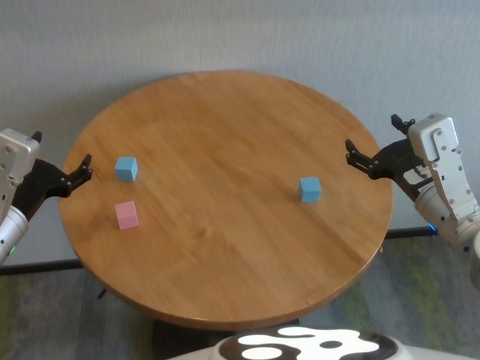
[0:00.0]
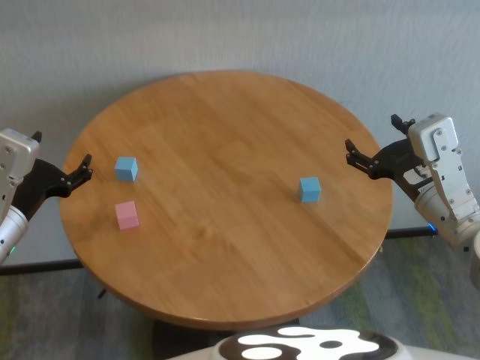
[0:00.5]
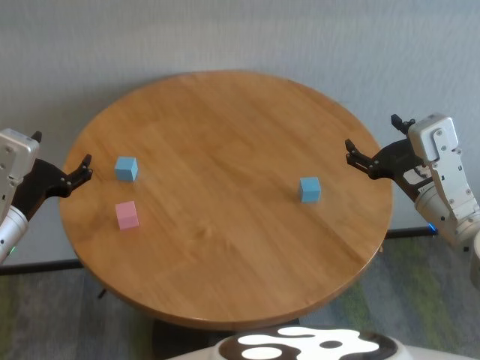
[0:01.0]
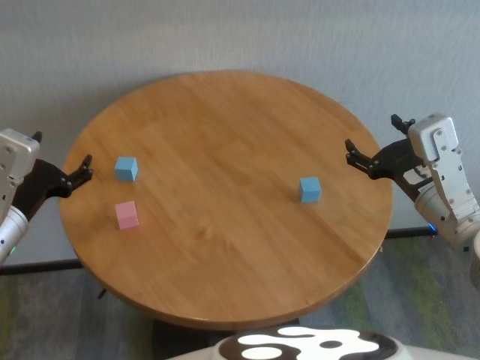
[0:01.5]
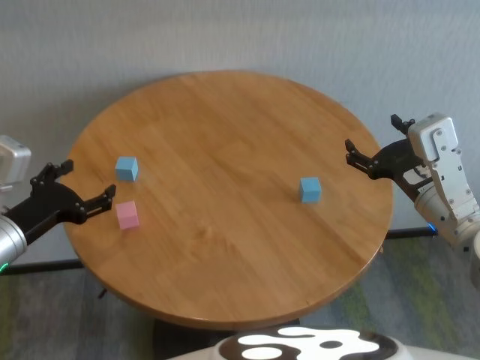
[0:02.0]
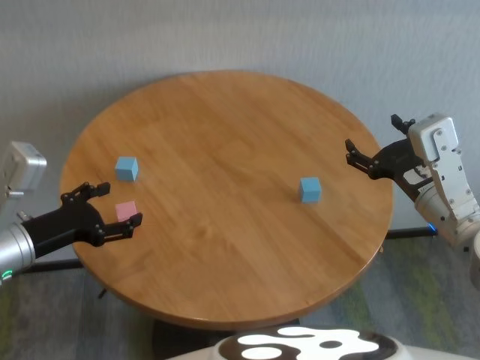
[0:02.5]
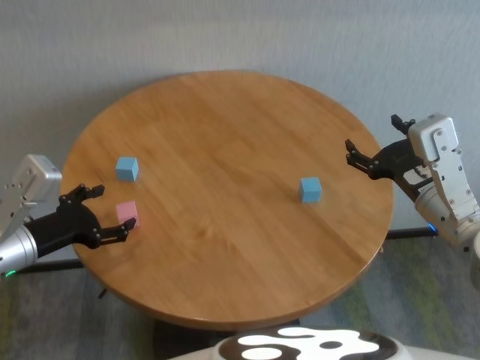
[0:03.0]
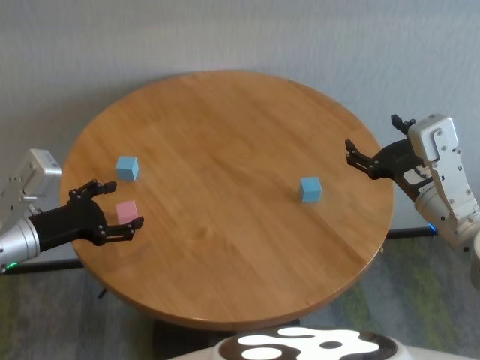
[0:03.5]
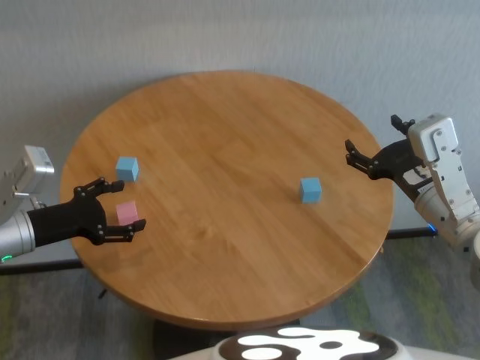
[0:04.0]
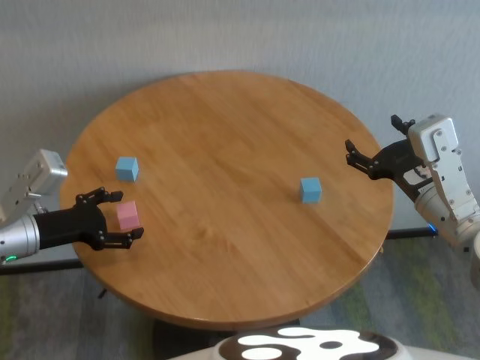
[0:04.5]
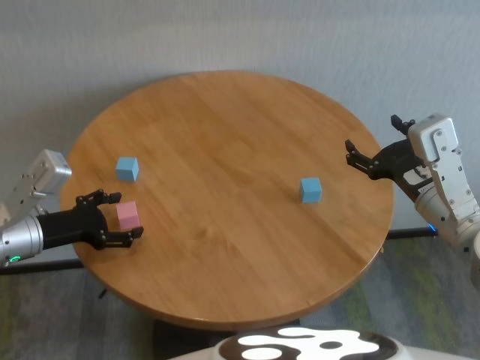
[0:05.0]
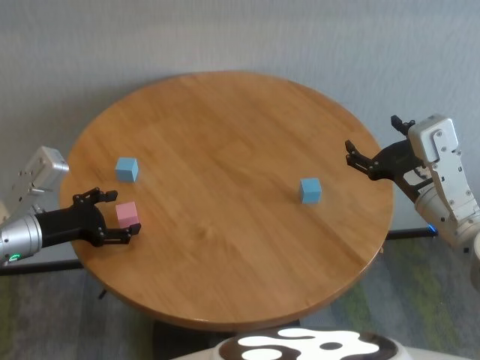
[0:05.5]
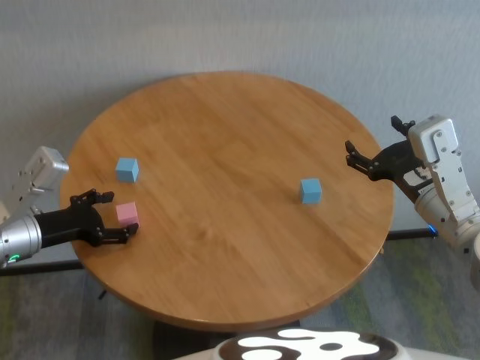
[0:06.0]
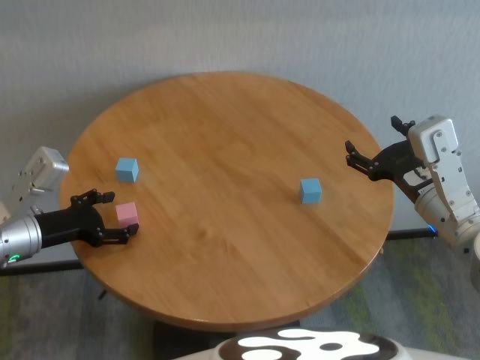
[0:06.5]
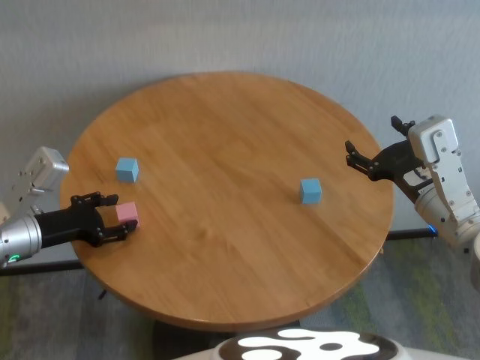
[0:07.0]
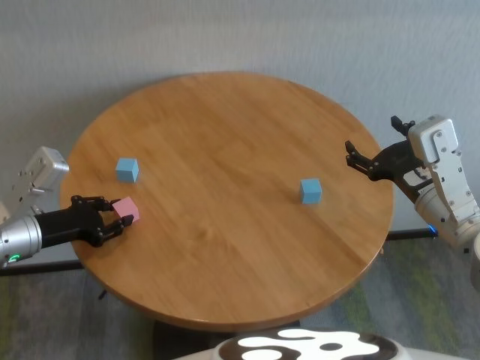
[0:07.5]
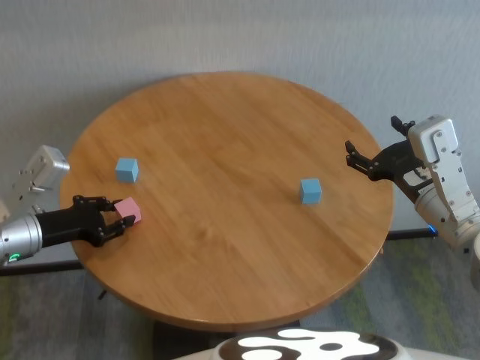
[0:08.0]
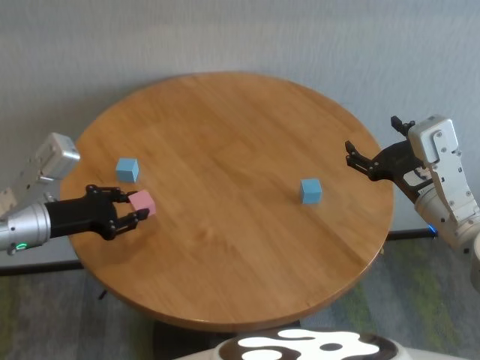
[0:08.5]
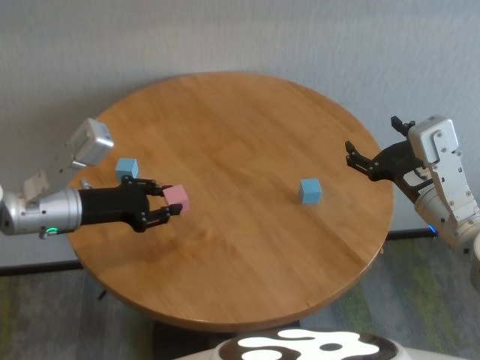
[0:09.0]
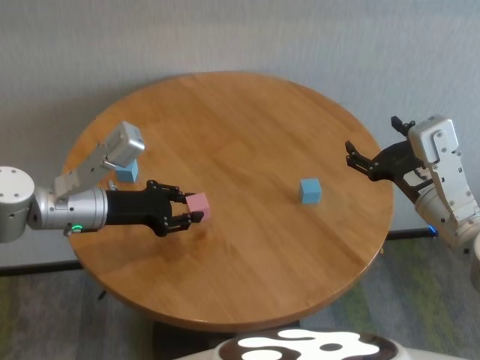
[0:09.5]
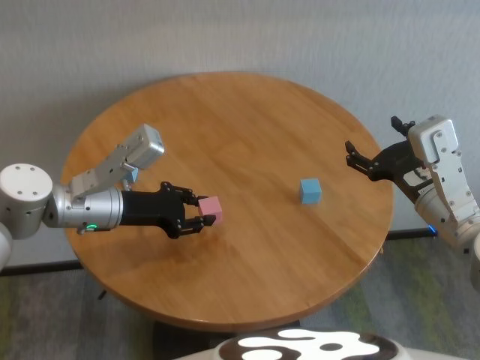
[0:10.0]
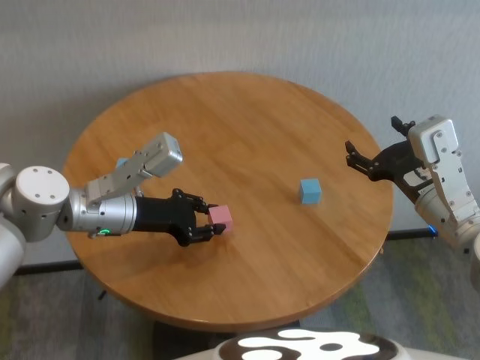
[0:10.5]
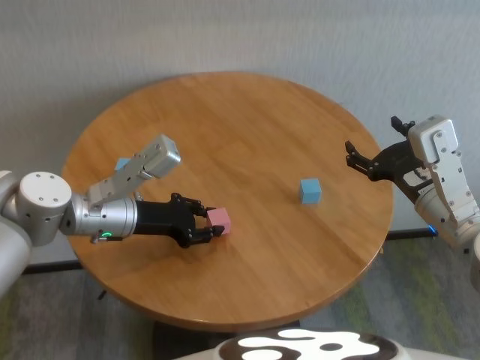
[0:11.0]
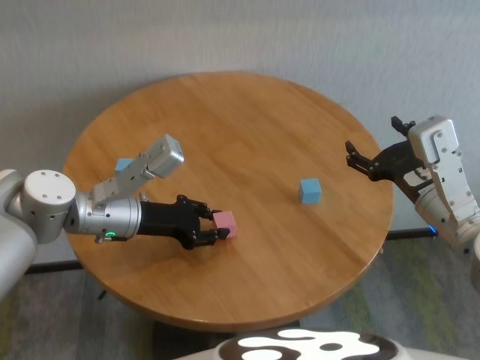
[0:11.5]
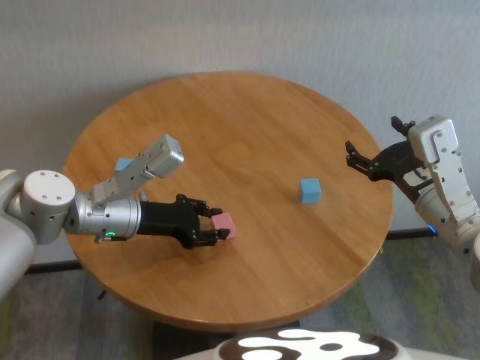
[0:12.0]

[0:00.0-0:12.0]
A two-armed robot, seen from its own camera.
Task of the whole recording: stack building blocks on the table.
Step, 0:00.0 to 0:07.5: Grasp the pink building block with left gripper.

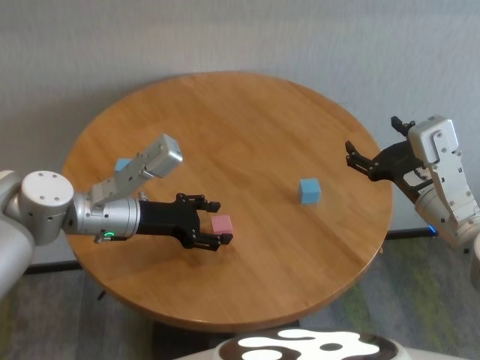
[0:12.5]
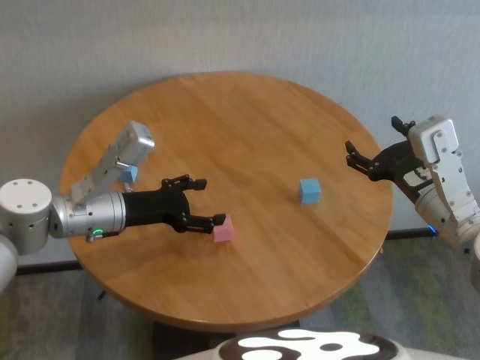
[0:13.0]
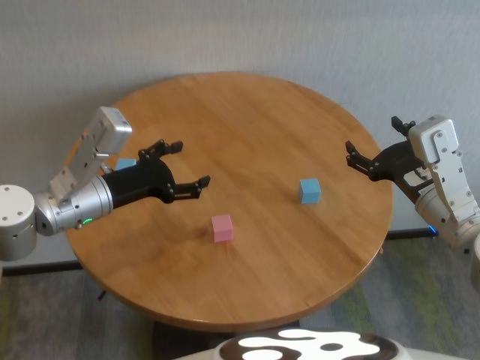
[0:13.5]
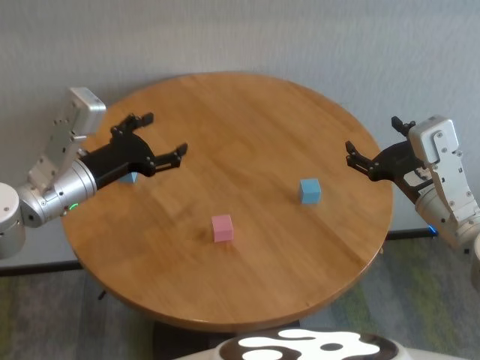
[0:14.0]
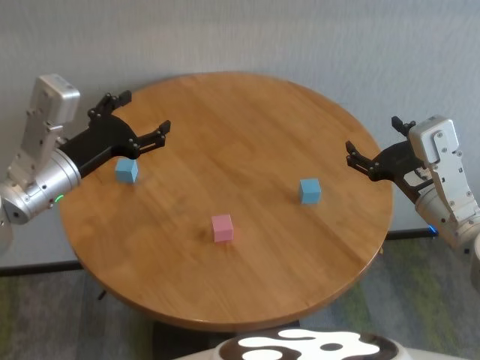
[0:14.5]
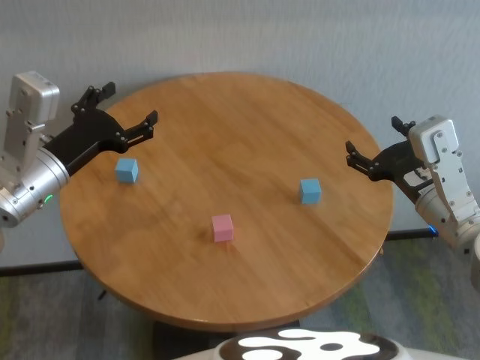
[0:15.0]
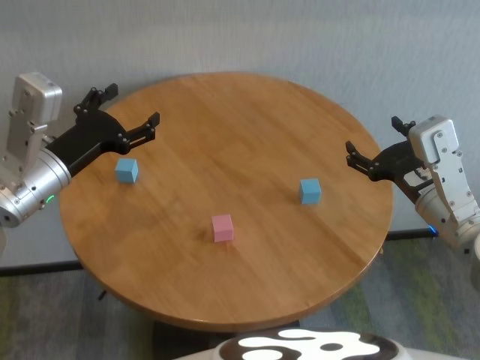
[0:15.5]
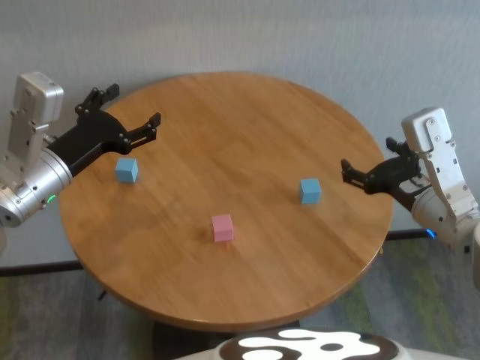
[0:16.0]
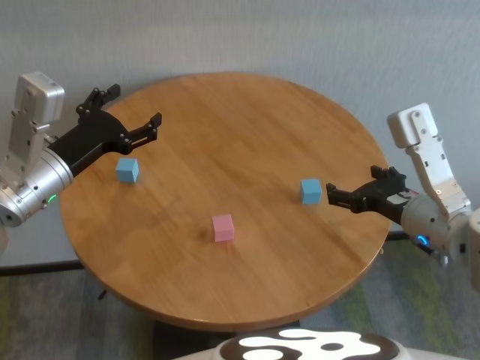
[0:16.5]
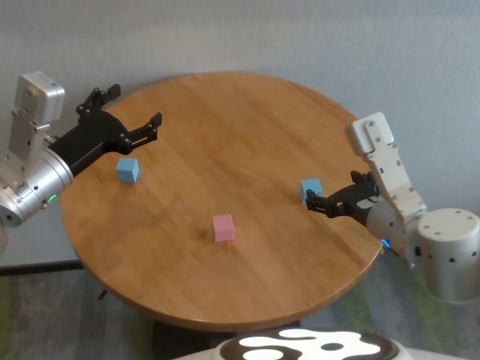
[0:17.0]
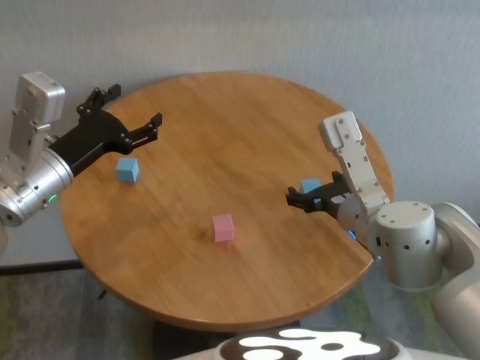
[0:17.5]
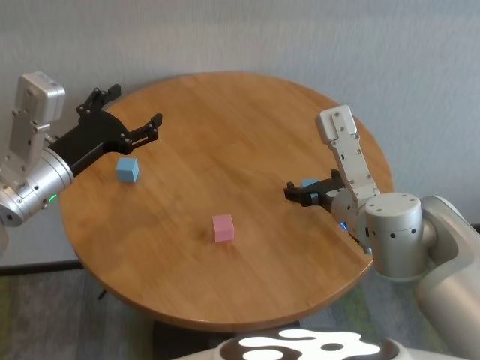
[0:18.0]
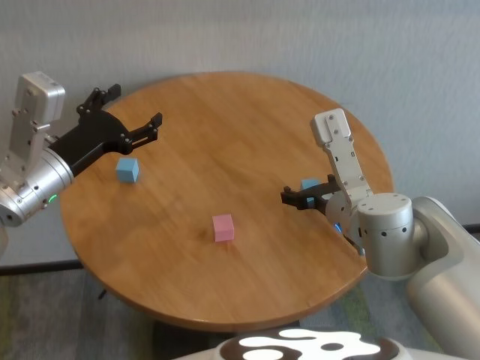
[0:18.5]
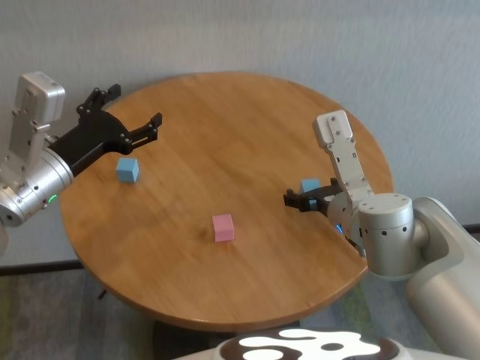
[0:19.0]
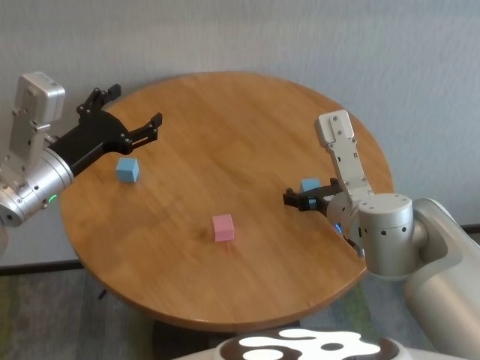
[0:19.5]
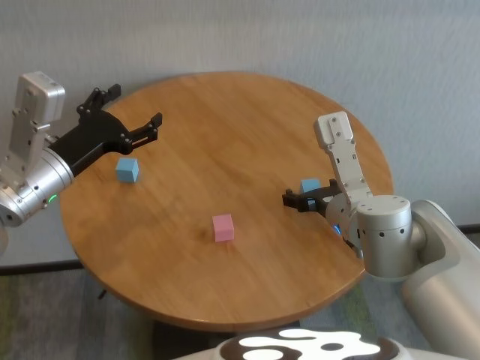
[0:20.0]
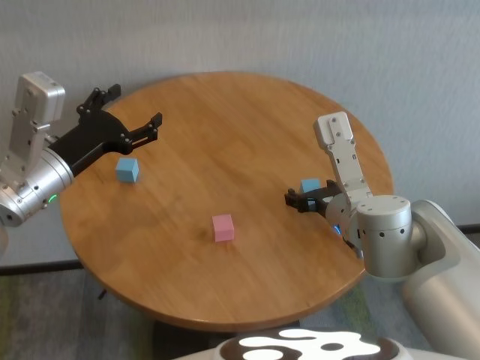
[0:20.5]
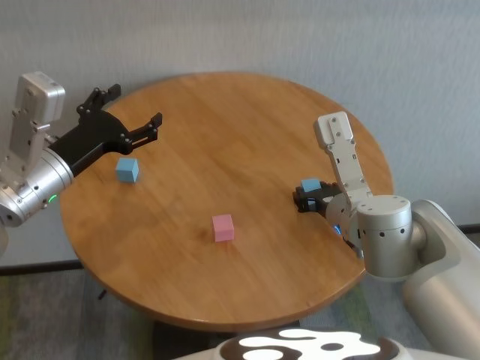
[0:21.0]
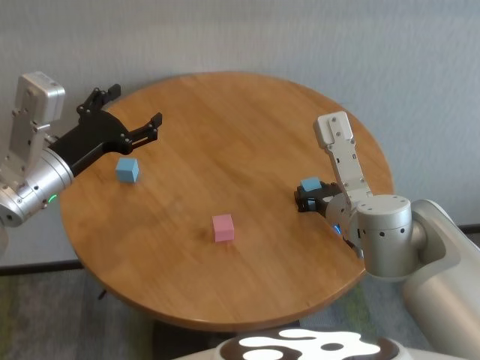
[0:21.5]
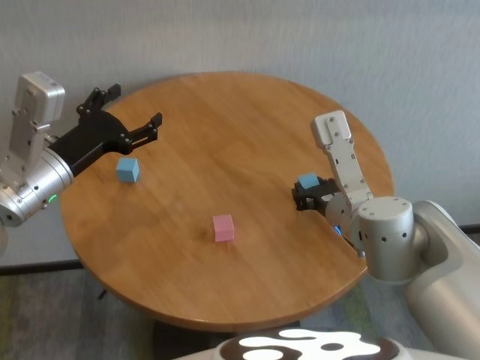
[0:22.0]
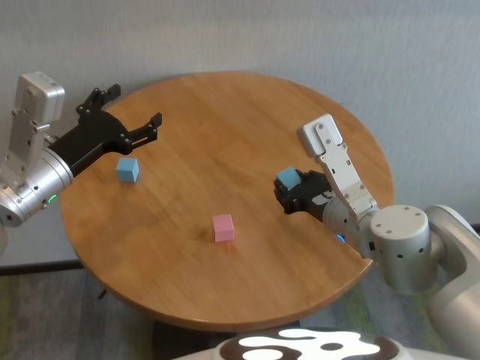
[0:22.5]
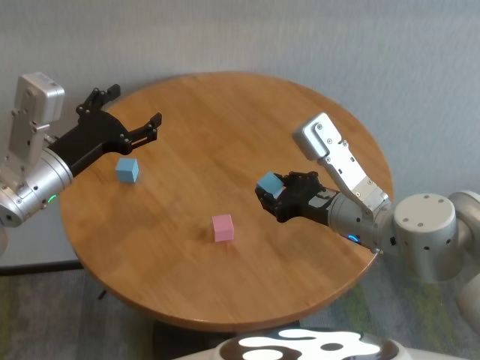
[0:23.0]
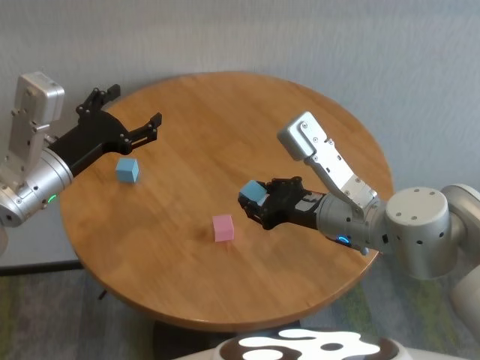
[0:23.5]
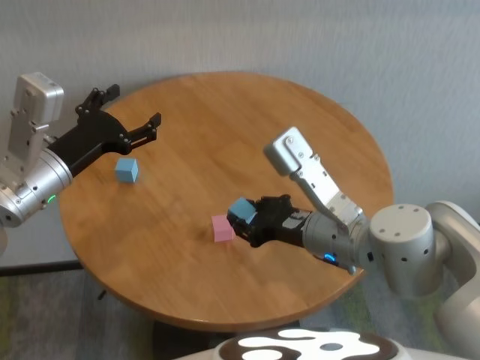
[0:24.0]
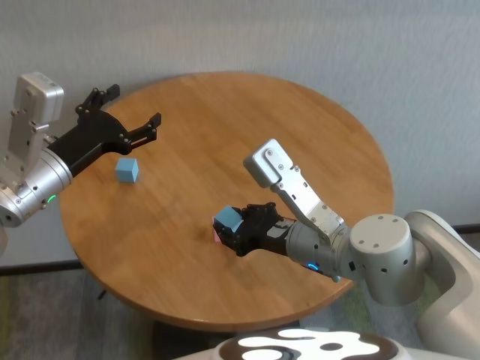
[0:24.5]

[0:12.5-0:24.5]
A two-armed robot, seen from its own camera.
Task of the whole recording: stack building blocks on the table.
Step, 0:13.0 to 0:21.5: Grasp the blue building block with right gripper.

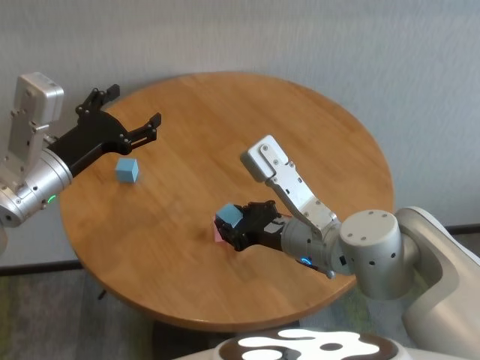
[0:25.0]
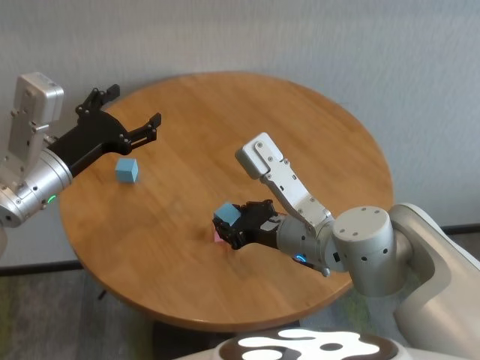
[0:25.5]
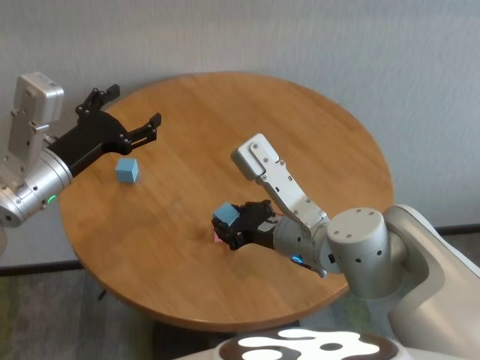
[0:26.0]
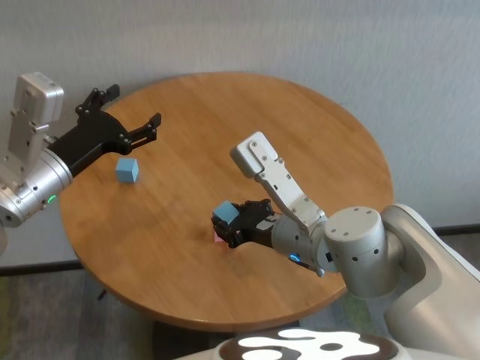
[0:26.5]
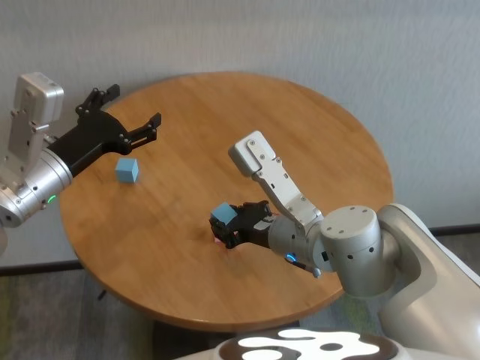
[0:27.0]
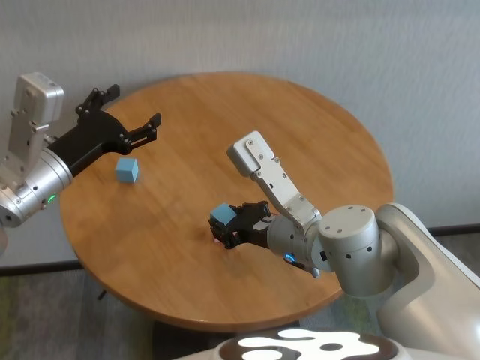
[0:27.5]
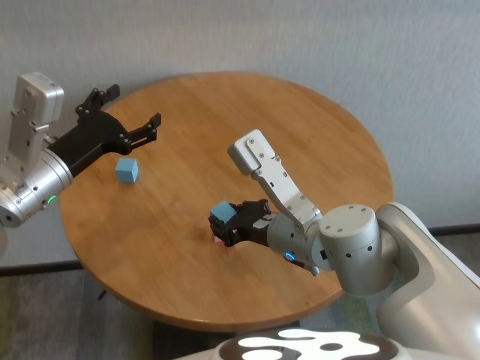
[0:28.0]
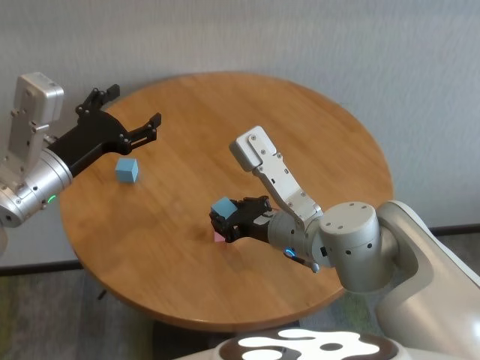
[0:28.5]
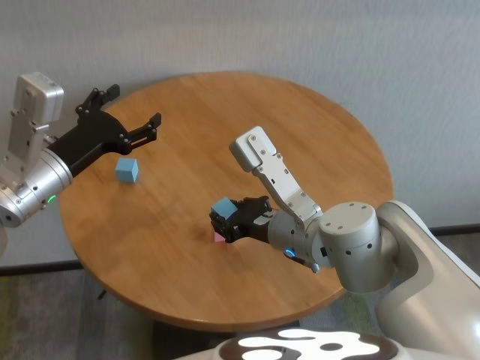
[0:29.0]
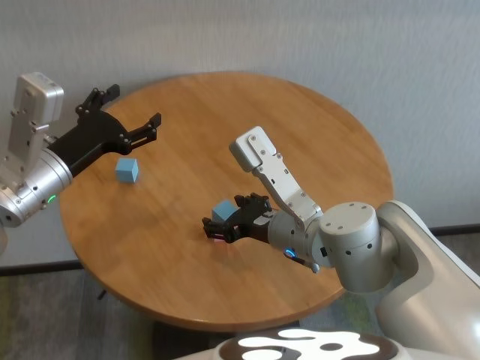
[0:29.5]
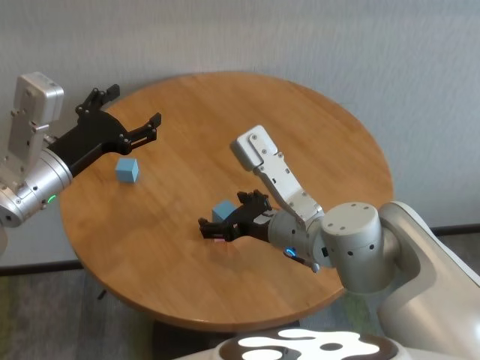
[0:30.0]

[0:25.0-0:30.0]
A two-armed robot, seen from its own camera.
Task of the whole recording: stack building blocks on the table.
Step, 0:25.0 to 0:29.5: Place the blue building block on the pink building blocks with right gripper.
